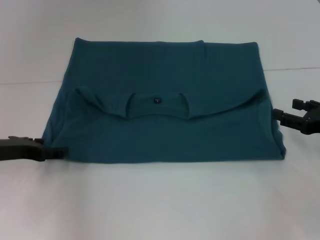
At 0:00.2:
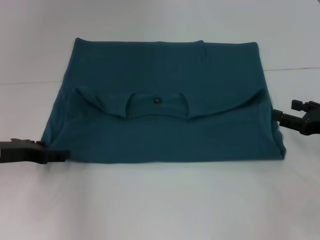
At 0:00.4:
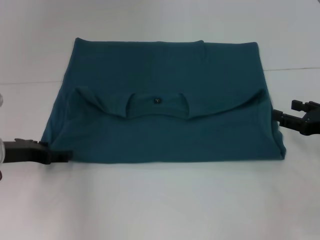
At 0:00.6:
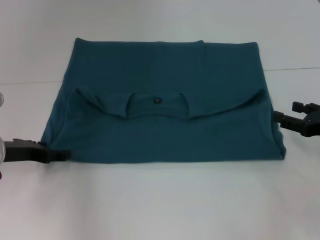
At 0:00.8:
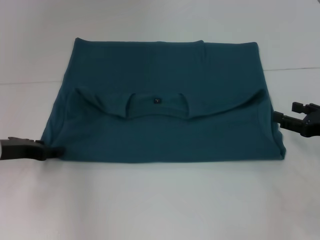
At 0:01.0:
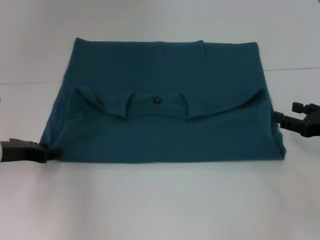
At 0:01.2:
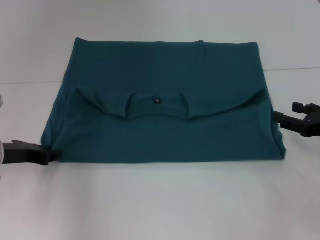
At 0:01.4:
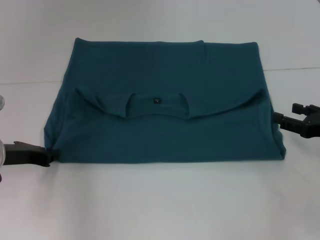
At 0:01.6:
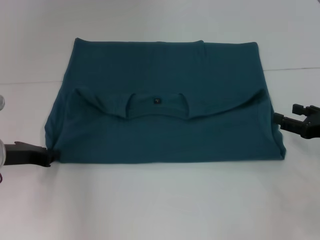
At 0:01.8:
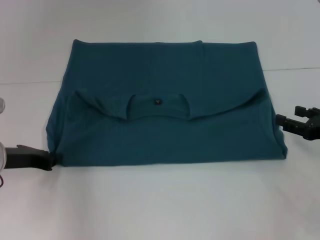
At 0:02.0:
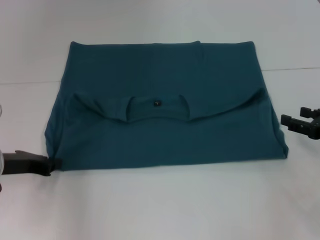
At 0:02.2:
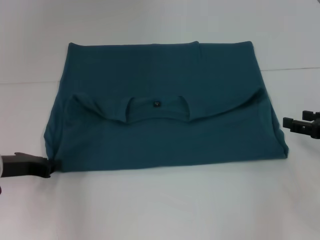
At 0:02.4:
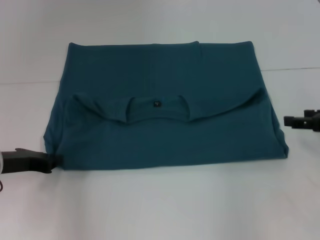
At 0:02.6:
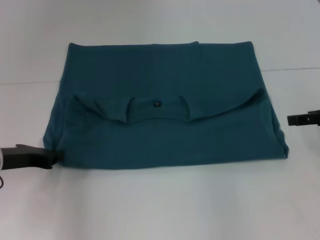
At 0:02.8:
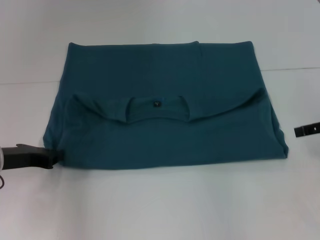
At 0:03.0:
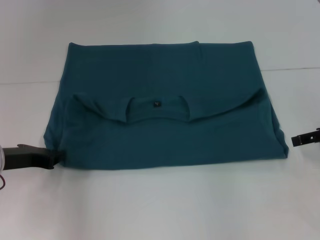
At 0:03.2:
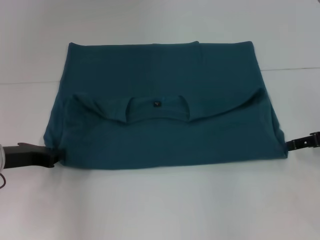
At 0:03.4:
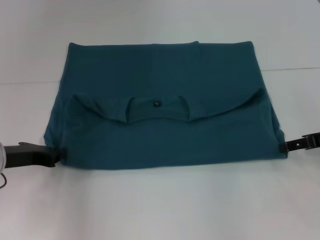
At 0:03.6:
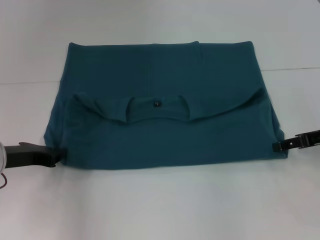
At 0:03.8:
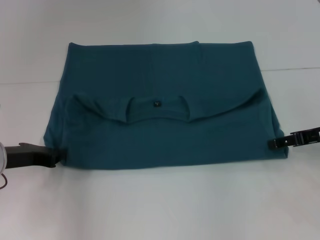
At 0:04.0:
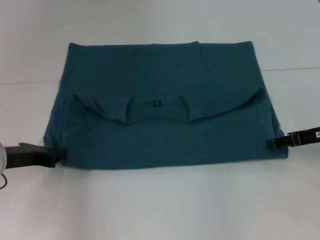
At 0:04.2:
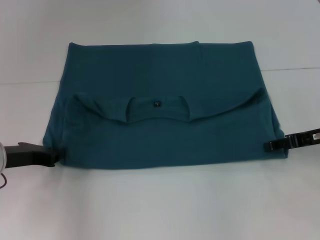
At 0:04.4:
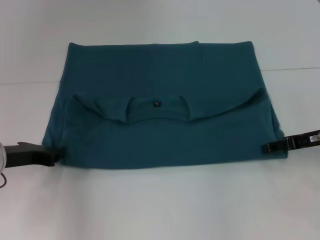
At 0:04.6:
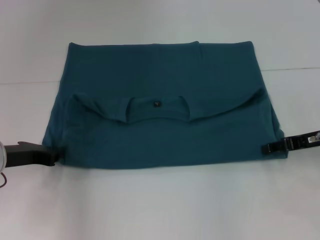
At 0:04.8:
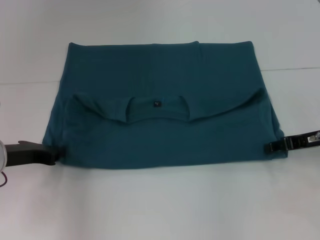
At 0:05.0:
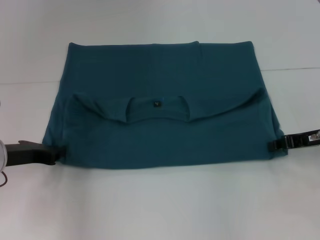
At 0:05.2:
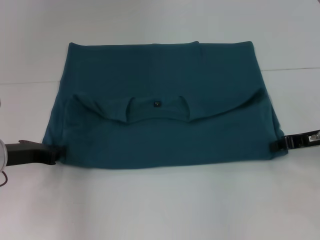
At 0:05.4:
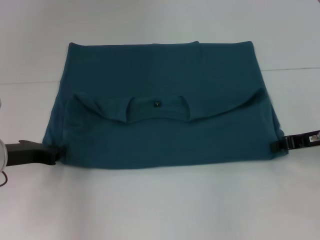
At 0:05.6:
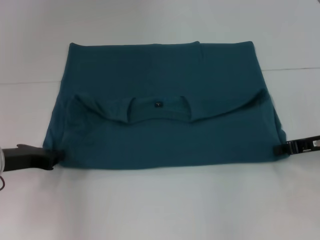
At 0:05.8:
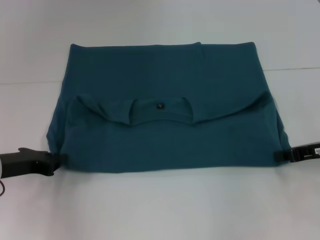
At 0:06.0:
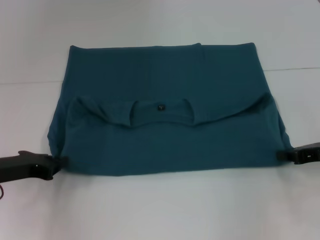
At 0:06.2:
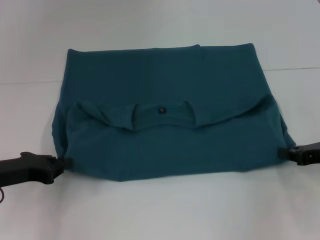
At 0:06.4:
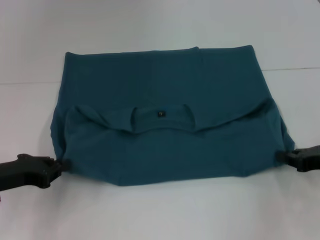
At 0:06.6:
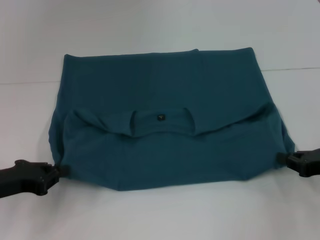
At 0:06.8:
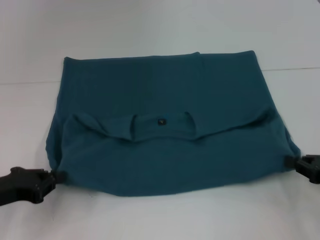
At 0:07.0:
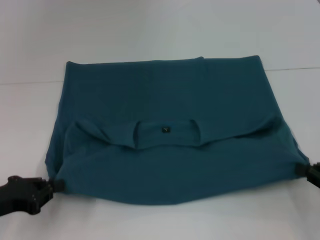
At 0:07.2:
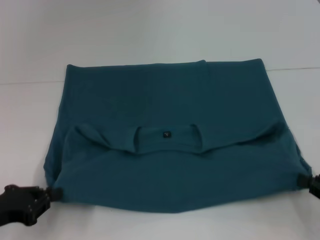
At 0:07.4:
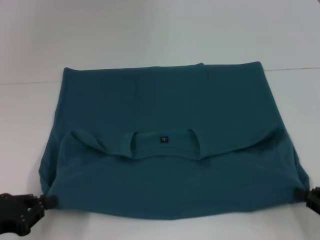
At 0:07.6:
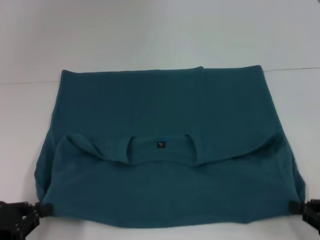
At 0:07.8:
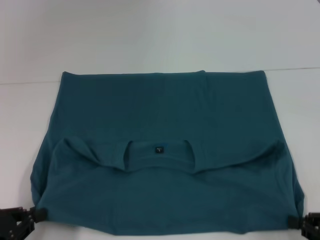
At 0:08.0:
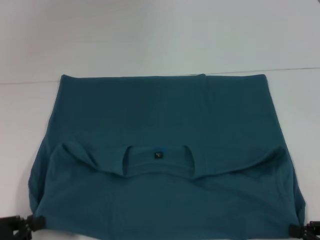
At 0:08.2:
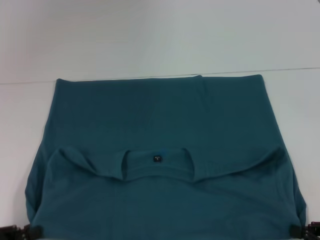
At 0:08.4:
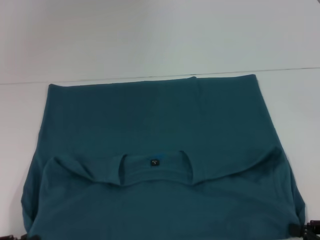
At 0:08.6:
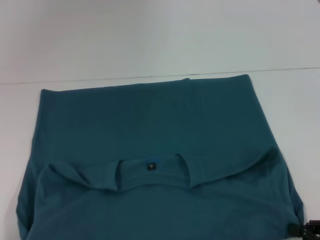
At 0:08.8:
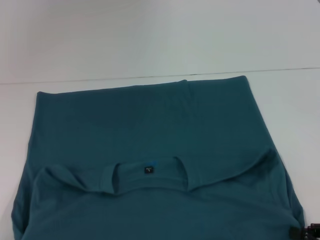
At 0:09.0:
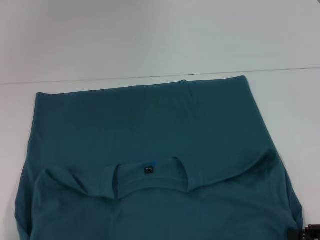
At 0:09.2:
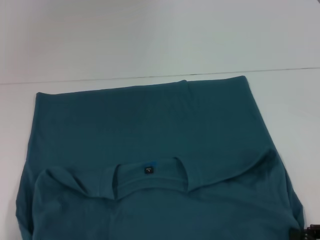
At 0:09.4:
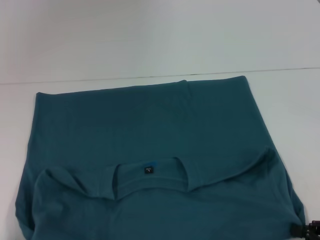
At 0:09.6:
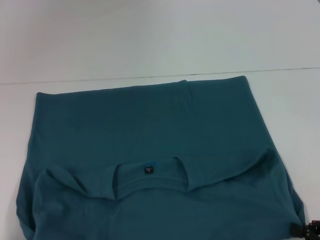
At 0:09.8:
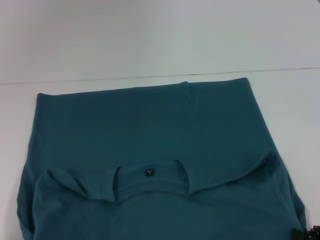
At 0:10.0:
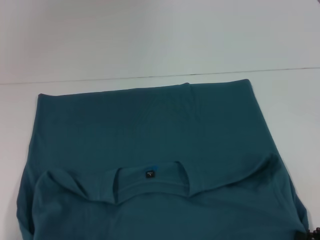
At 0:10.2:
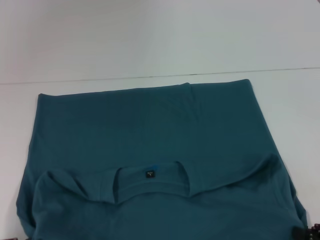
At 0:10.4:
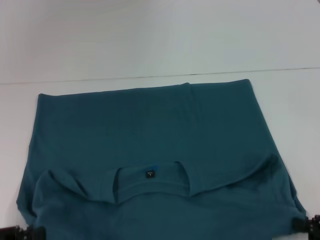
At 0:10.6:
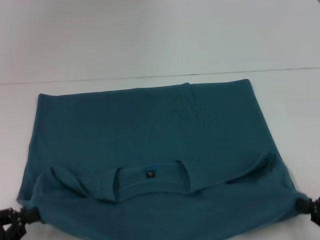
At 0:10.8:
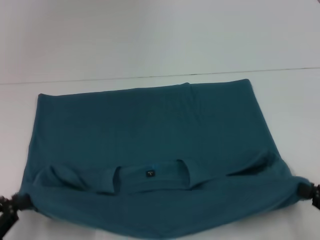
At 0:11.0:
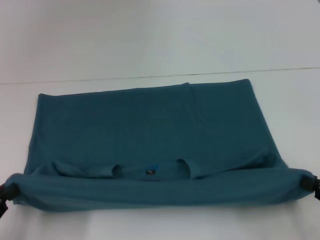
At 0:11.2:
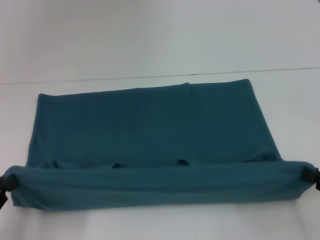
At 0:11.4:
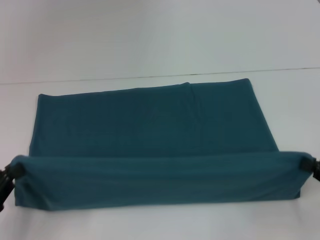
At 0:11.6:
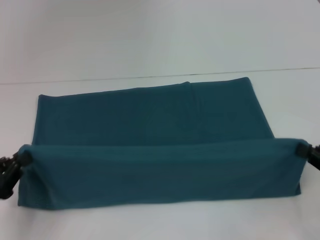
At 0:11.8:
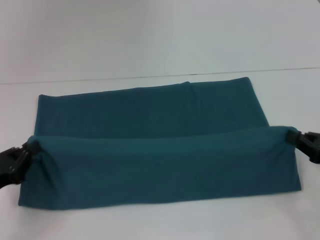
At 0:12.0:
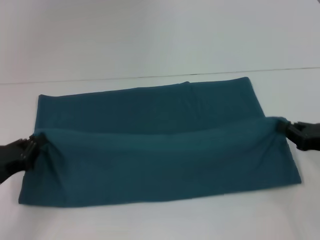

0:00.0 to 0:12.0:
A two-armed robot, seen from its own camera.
Step, 0:00.0 to 0:08.6: Pull the clothes with your left hand.
Step, 0:00.0 to 0:08.6: Pull the clothes with your right hand.
0:00.0 to 0:01.6: The left gripper closes its fingers.
0:01.6 to 0:03.0: The right gripper moves upward, roughly 5 cm.
0:03.0 to 0:04.4: The right gripper changes place by about 5 cm.
0:04.4 to 0:06.0: The right gripper closes.
0:06.0 to 0:07.6: The two grippers go approximately 10 cm backward.
0:07.6 to 0:09.0: The left gripper moves backward, roughly 10 cm.
0:09.0 to 0:10.4: The grippers move only a little.
0:10.4 to 0:12.0: The grippers both shift forward by some 10 cm.

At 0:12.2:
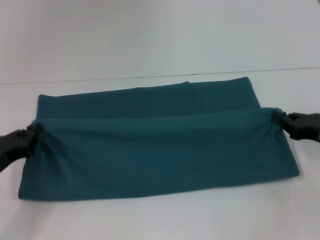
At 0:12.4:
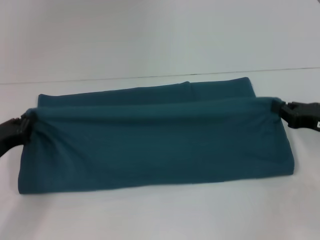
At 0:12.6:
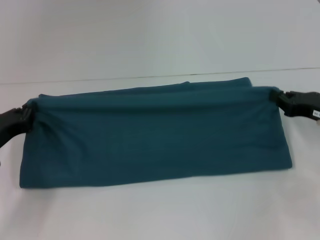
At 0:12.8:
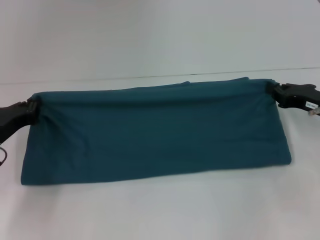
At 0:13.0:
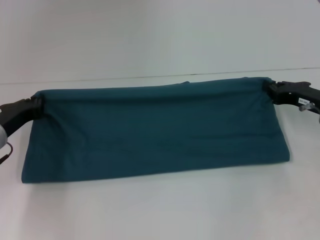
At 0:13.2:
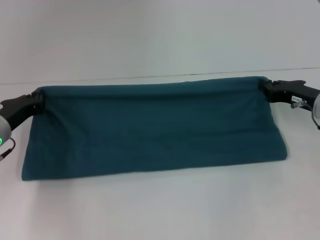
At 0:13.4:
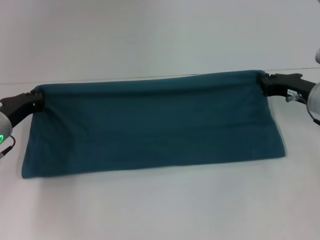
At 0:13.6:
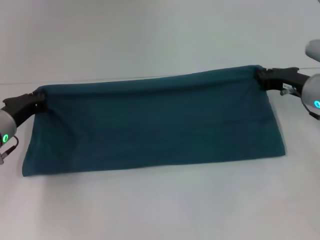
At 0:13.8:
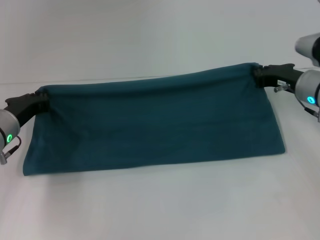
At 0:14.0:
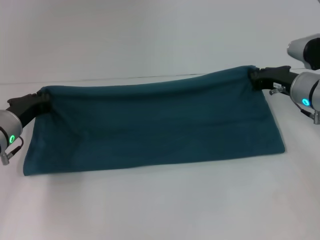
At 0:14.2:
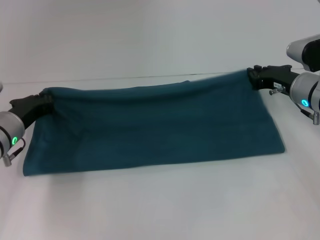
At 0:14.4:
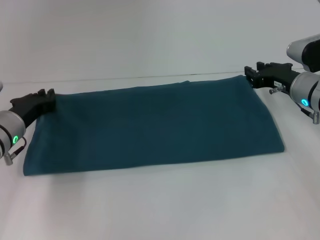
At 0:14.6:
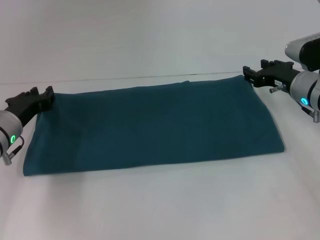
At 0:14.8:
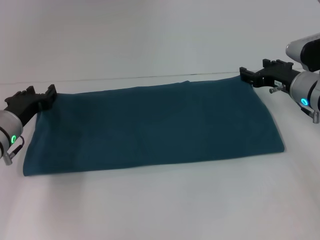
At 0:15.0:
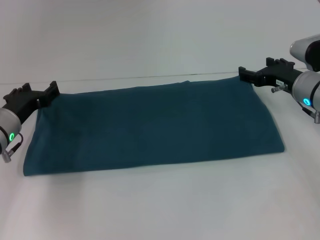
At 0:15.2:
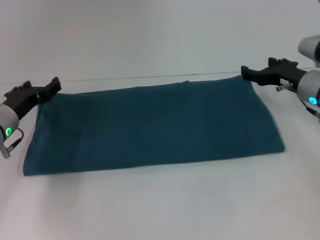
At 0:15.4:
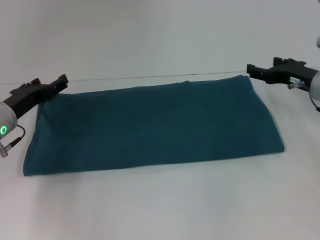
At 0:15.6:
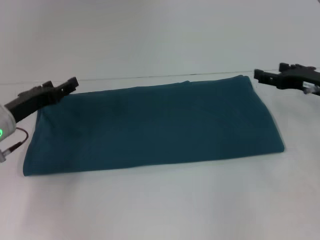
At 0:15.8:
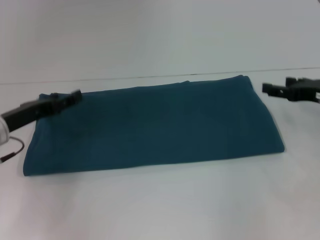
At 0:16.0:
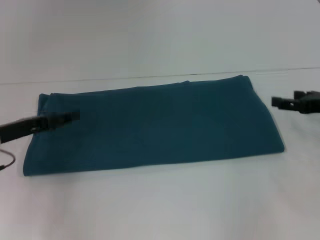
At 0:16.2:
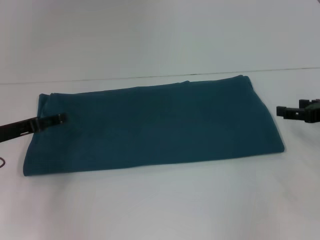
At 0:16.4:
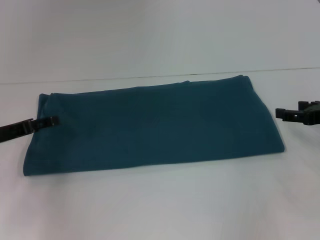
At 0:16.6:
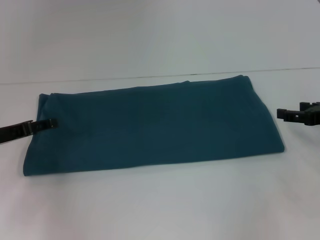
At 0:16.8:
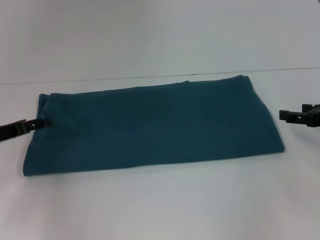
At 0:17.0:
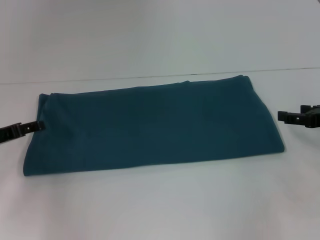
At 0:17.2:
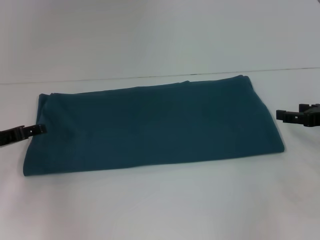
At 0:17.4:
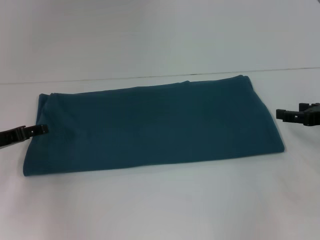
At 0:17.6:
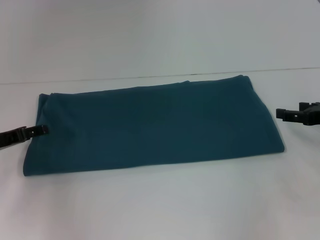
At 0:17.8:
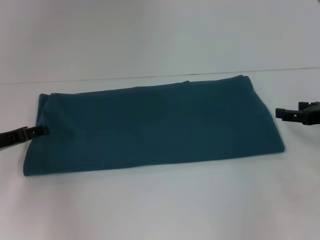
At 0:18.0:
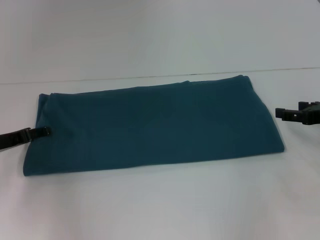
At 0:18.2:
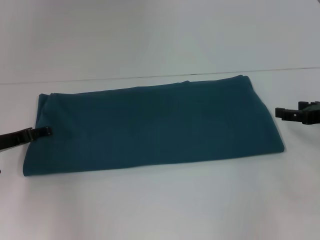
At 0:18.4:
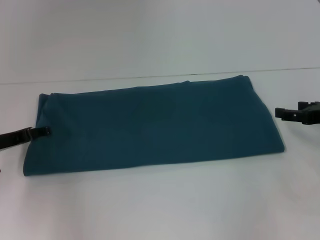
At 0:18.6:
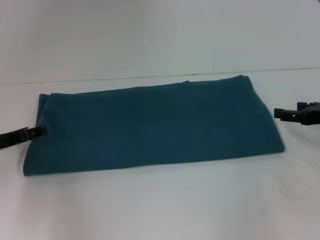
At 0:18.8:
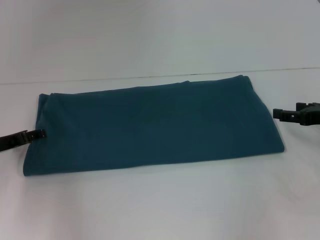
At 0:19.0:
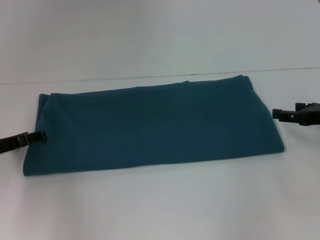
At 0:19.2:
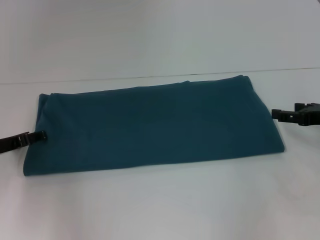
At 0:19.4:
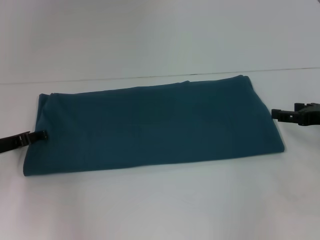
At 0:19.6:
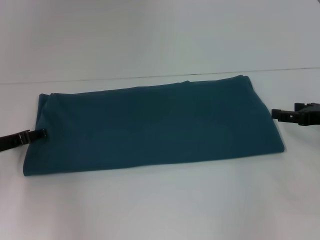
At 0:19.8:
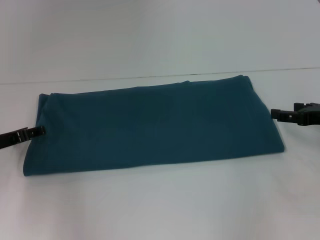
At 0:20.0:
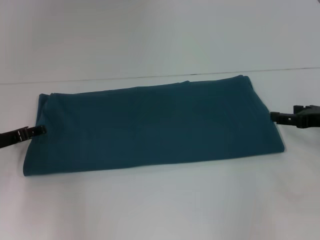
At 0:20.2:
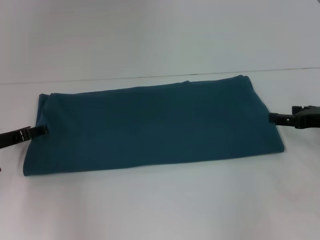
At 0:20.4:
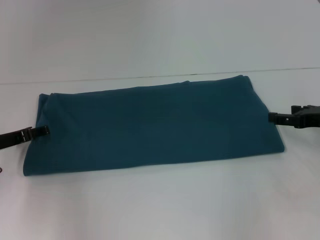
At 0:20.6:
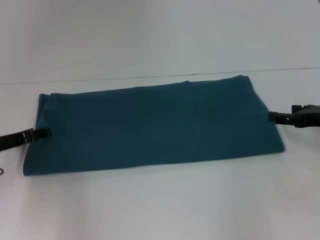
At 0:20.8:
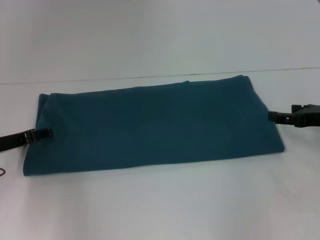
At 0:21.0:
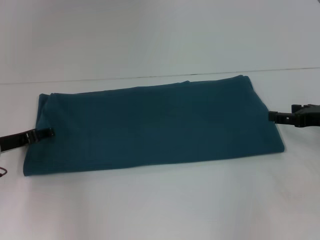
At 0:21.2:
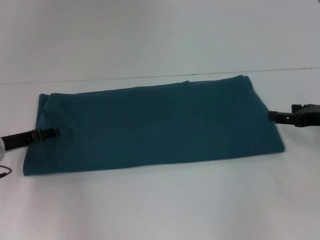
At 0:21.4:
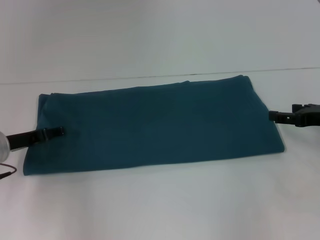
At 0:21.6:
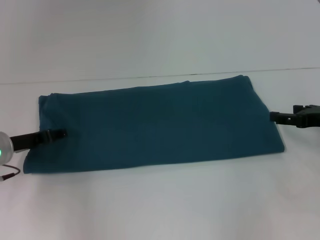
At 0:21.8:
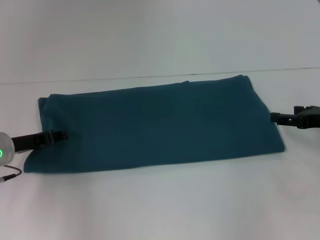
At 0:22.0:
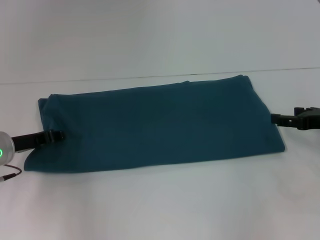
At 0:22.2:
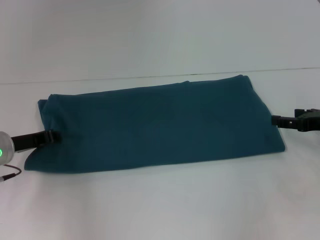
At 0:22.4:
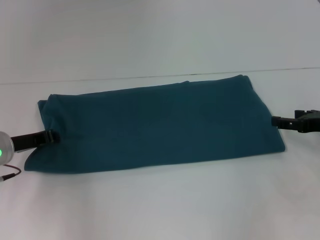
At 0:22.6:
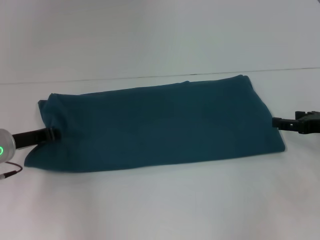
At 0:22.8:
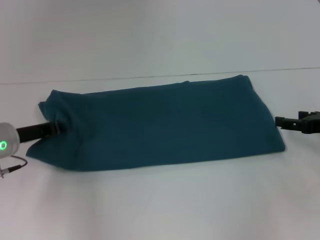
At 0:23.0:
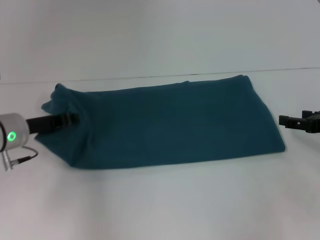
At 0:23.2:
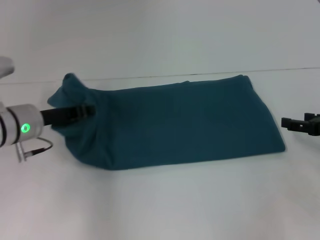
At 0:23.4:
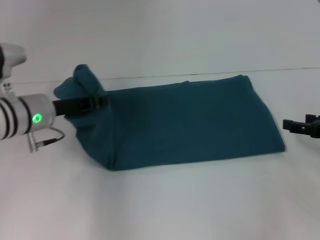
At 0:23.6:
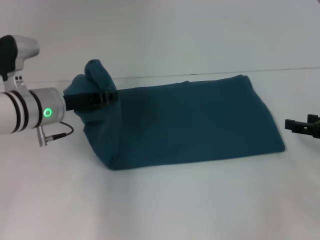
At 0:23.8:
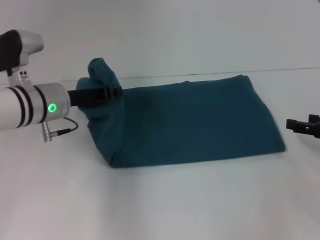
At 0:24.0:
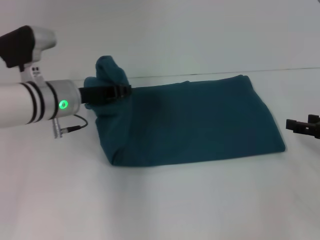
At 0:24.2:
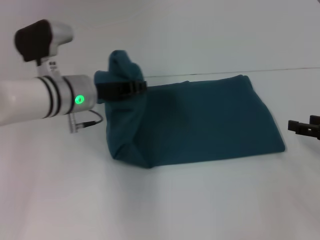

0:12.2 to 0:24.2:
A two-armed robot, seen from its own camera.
Step, 0:12.2 to 0:14.6: Fold the clothes to the right.
0:12.2 to 0:13.8: The left gripper moves forward, some 10 cm, while the right gripper goes approximately 15 cm forward and to the left.
0:13.8 to 0:15.2: The right gripper opens; the left gripper opens.
0:15.2 to 0:16.6: The right gripper is displaced backward and to the right by approximately 10 cm; the left gripper ends up approximately 5 cm from where it was.
0:16.6 to 0:18.2: The grippers move only a little.
0:18.2 to 0:19.8: Both grippers stay put.
0:19.8 to 0:21.2: The grippers stay close to where they were, moving slightly.
0:21.2 to 0:22.6: The left gripper closes its fingers.
0:22.6 to 0:24.2: The left gripper travels to the right and upward by some 15 cm.
